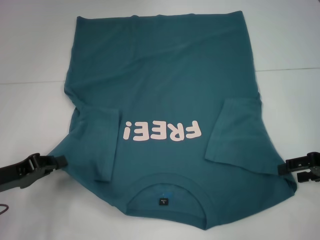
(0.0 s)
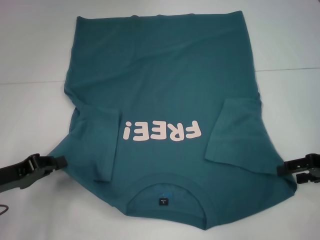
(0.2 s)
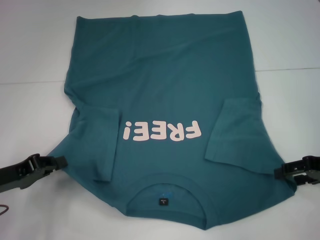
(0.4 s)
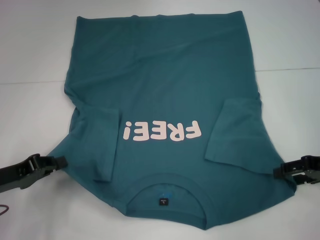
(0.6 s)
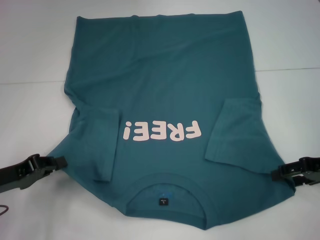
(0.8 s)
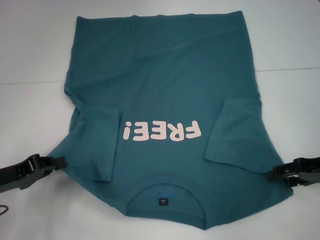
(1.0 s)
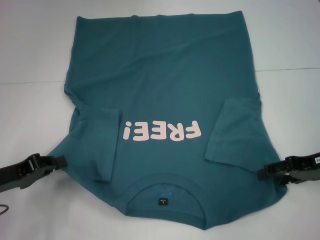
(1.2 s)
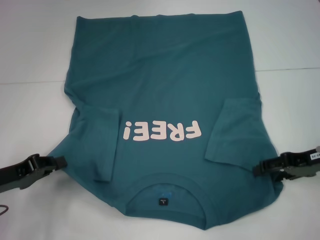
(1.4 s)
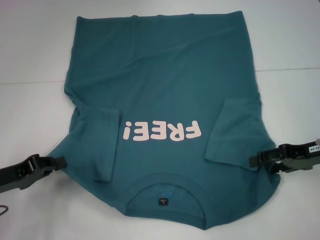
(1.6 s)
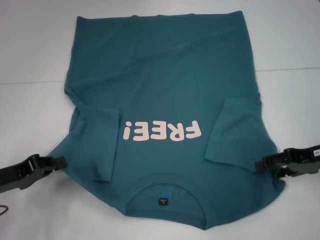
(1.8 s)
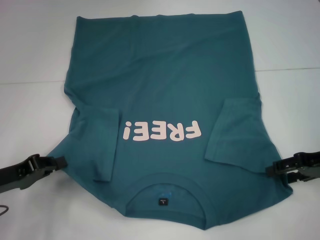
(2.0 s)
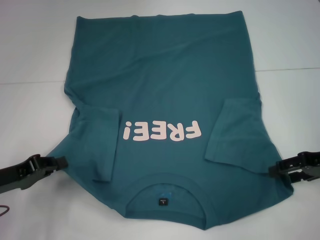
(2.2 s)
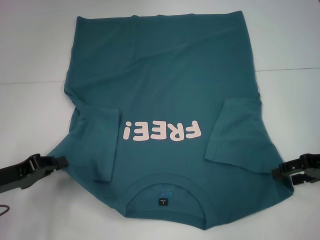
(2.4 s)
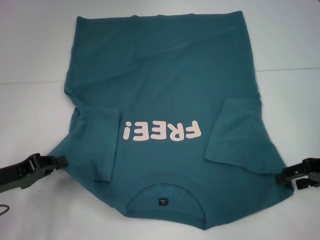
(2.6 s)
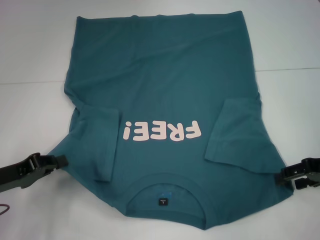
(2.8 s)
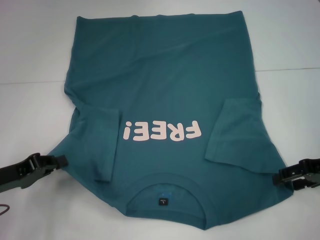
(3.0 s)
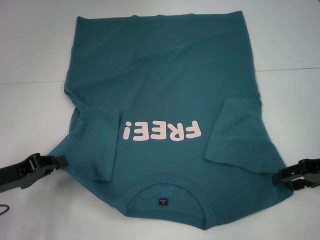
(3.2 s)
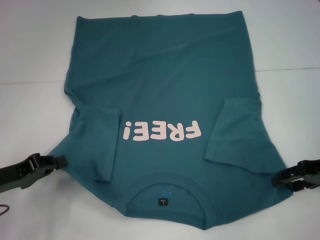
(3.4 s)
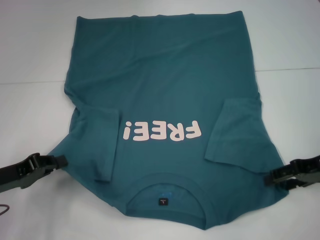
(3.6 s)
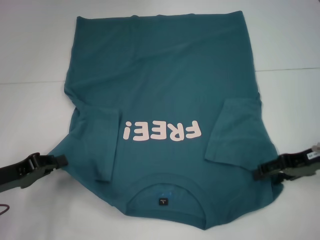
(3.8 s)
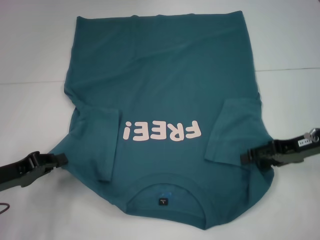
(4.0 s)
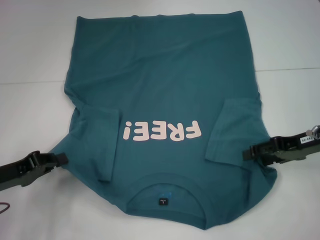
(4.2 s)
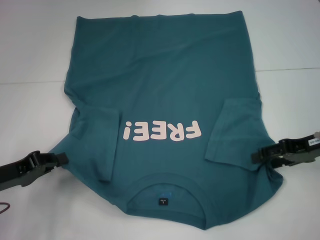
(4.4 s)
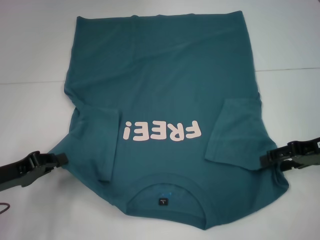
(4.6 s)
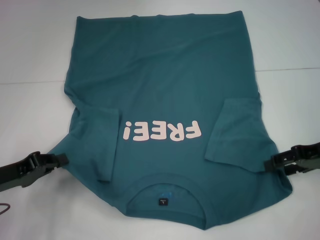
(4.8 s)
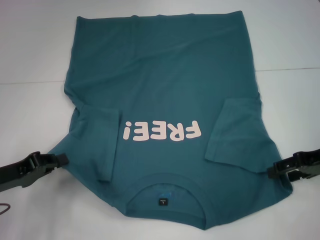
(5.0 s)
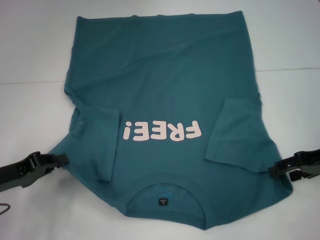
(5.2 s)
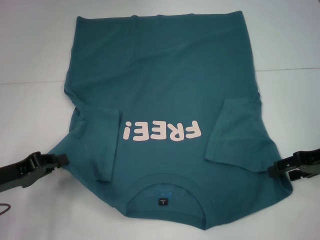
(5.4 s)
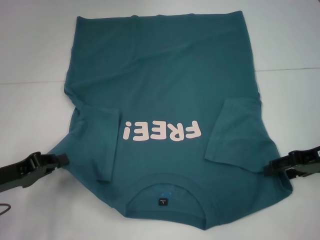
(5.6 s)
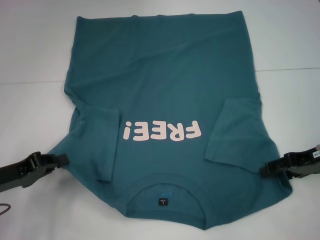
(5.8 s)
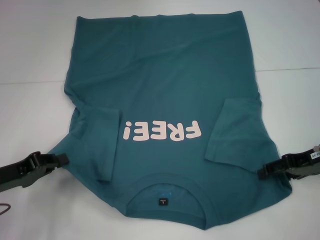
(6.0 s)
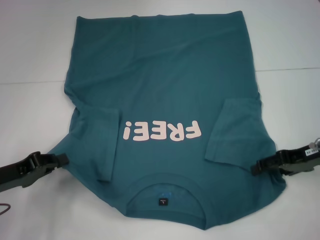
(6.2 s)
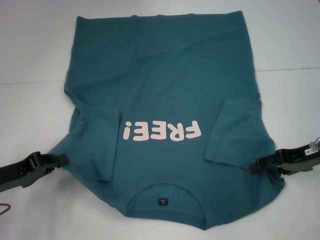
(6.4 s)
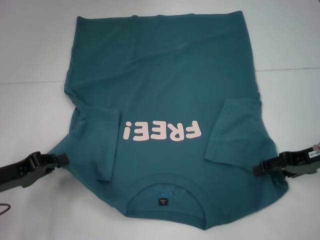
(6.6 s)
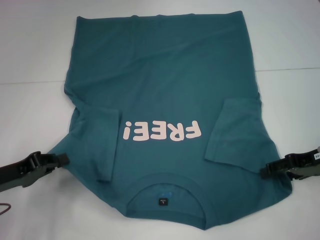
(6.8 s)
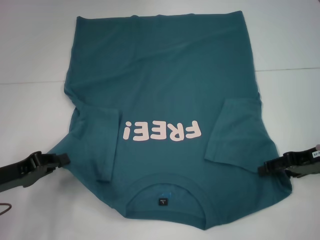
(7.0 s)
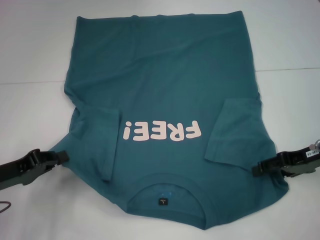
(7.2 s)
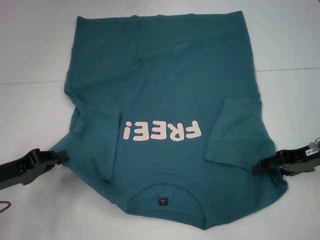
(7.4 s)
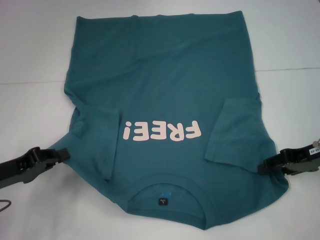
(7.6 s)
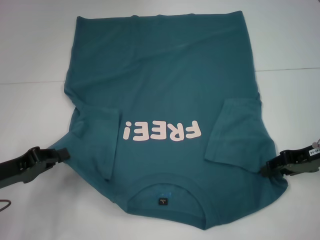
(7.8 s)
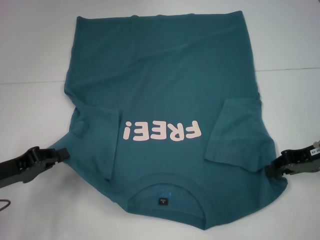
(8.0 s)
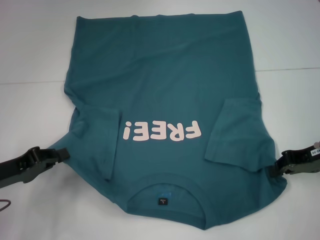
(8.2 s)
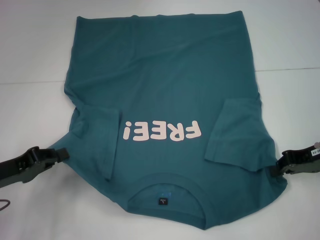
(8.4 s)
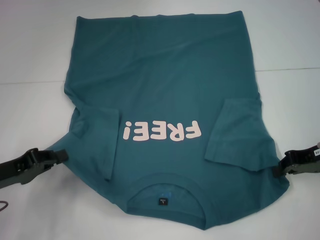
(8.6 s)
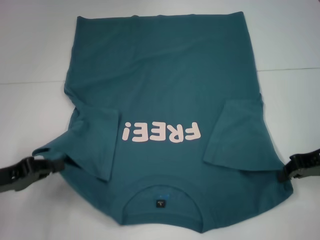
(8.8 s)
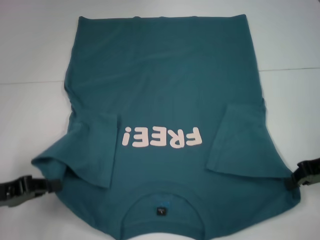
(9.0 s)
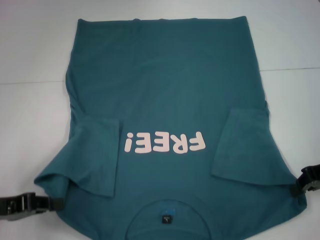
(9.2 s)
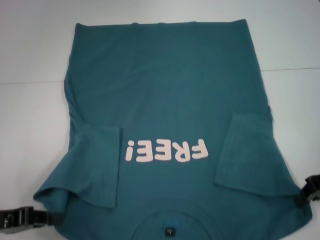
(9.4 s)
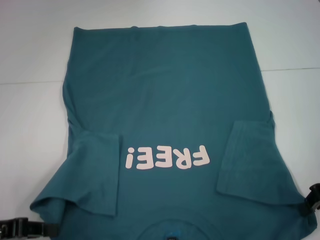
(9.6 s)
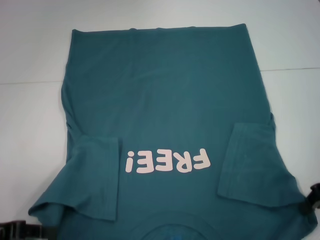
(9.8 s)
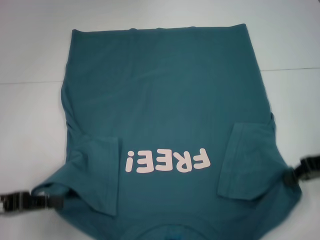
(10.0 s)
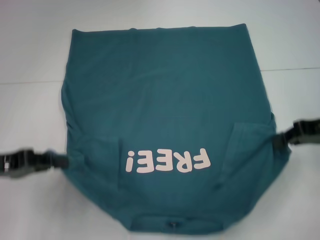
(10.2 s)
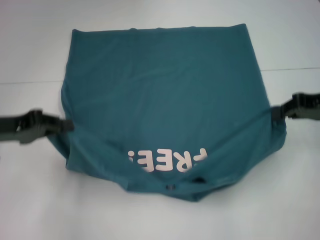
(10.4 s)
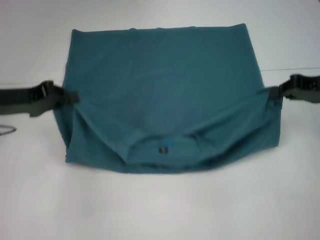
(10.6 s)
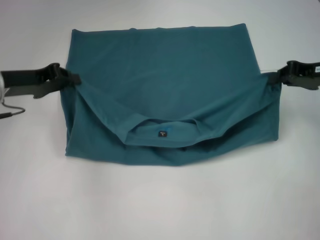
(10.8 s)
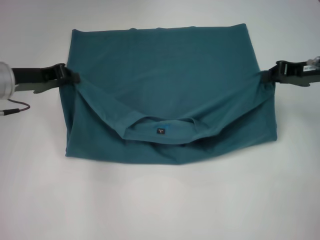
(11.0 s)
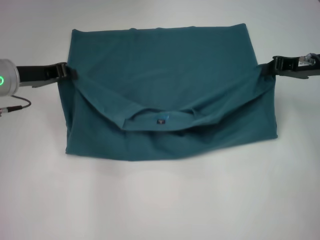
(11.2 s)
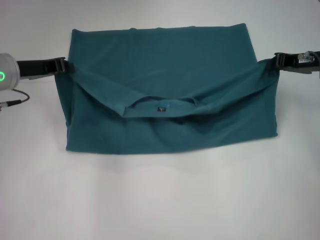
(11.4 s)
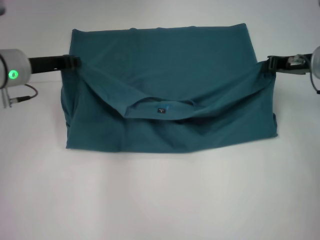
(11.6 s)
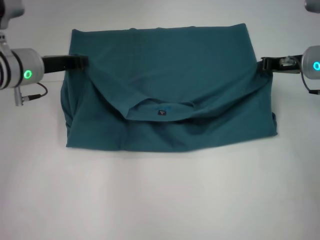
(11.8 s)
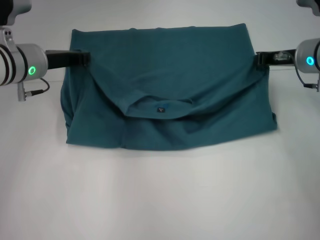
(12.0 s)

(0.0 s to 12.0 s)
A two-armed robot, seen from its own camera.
Step, 0.0 s - 8.8 s: Grab the bottom right corner with your right hand.
0.0 s - 3.0 s: The grippers move only a little.
3.0 s - 6.0 s: The grippers stay close to where they were, moving slightly.
6.0 s - 7.6 s: Both grippers stay about where they are.
7.6 s - 9.0 s: The right gripper closes its fingers.
9.0 s - 10.4 s: The right gripper moves upward, roughly 5 cm. The left gripper heads forward and upward, covering approximately 10 cm.
10.4 s - 12.0 s: The left gripper shifts approximately 15 cm forward and to the right. The right gripper moves forward and to the left, roughly 10 cm.

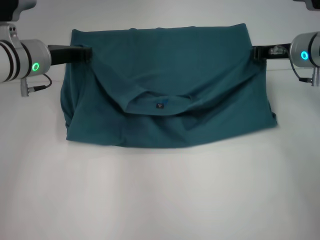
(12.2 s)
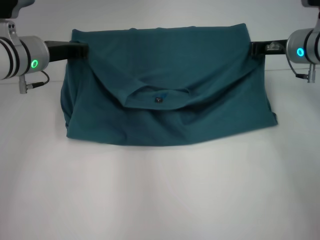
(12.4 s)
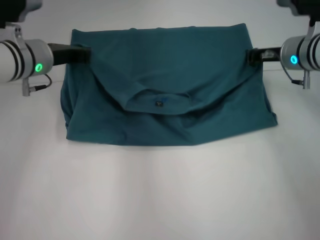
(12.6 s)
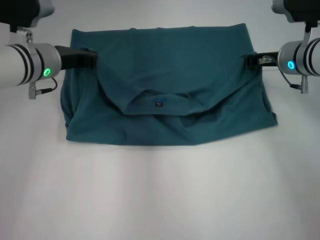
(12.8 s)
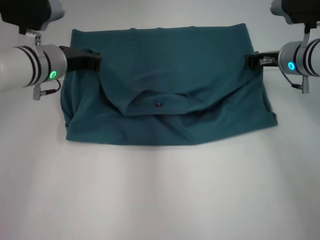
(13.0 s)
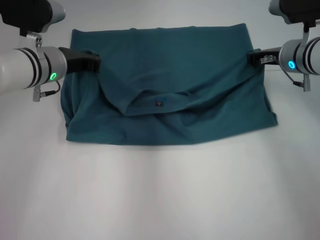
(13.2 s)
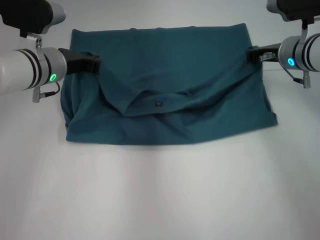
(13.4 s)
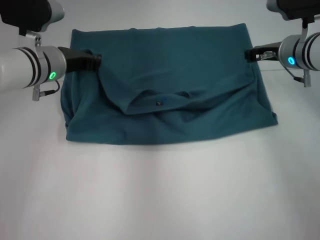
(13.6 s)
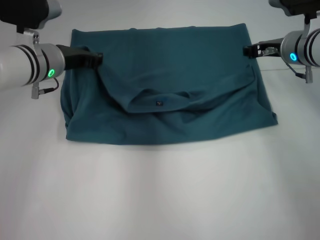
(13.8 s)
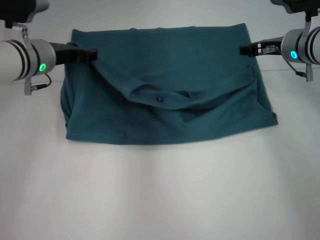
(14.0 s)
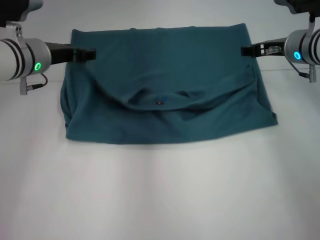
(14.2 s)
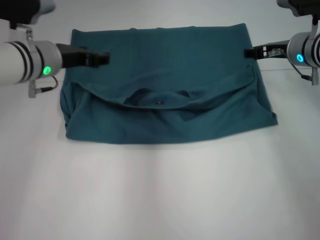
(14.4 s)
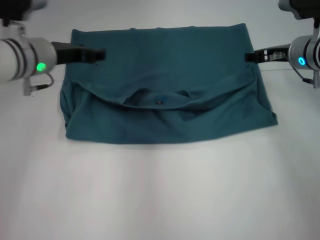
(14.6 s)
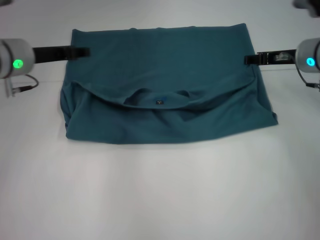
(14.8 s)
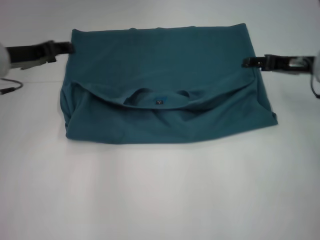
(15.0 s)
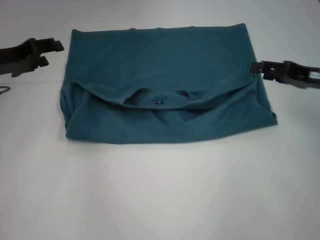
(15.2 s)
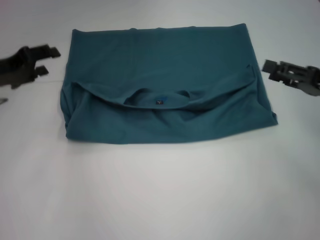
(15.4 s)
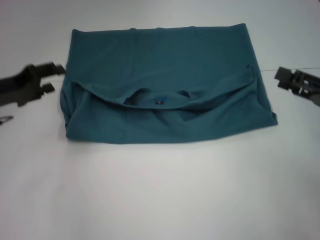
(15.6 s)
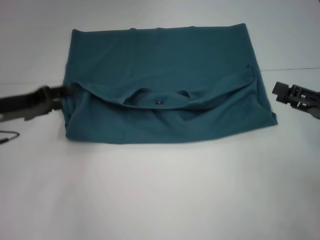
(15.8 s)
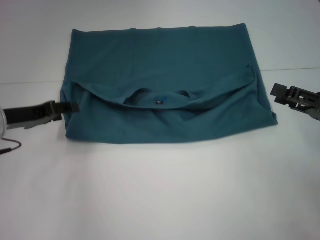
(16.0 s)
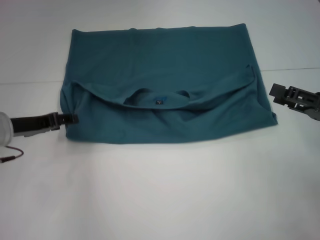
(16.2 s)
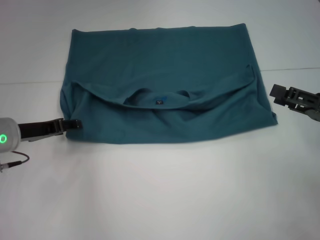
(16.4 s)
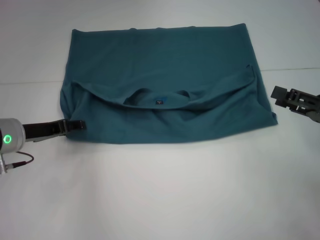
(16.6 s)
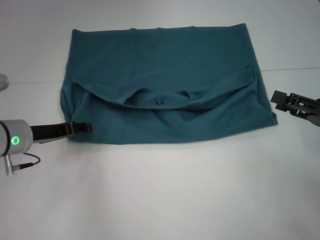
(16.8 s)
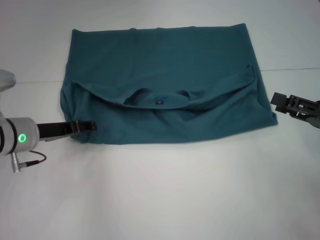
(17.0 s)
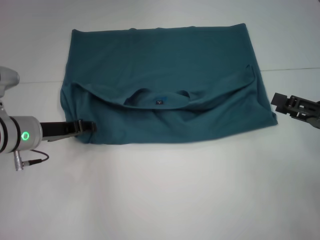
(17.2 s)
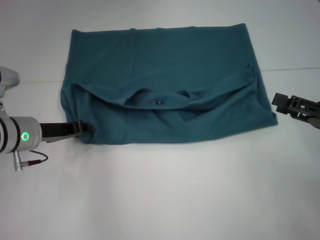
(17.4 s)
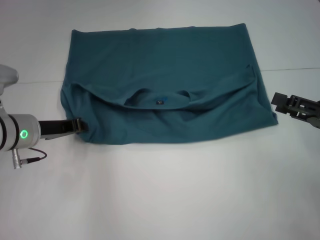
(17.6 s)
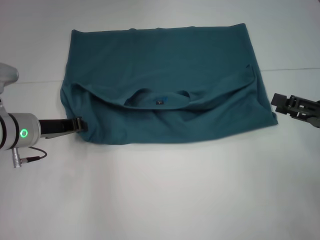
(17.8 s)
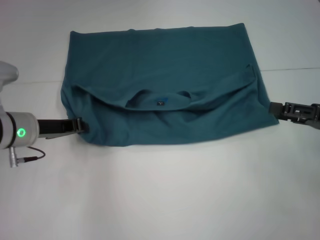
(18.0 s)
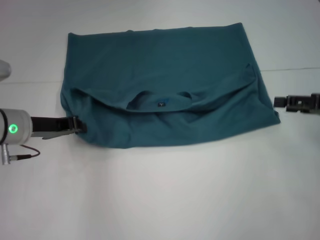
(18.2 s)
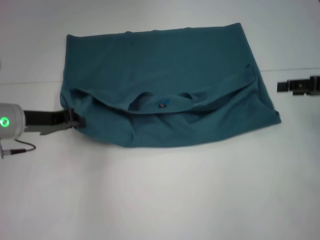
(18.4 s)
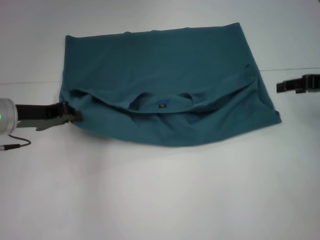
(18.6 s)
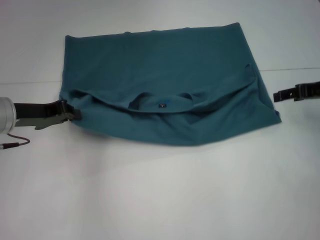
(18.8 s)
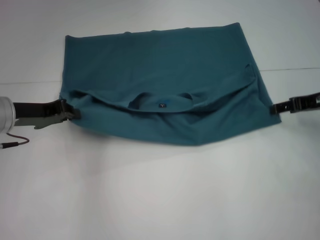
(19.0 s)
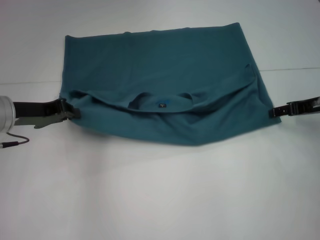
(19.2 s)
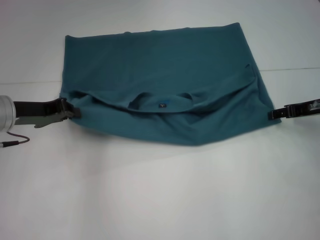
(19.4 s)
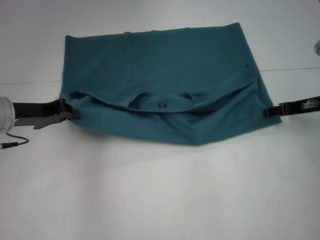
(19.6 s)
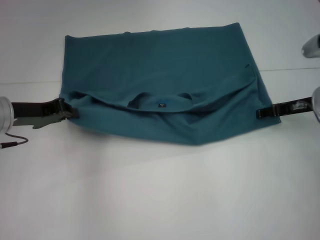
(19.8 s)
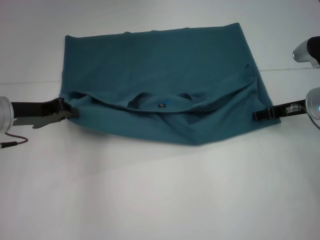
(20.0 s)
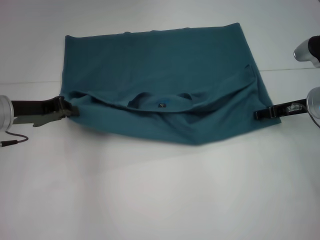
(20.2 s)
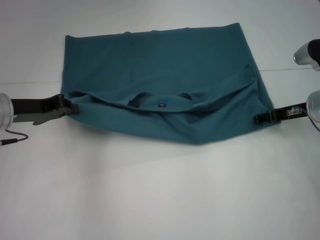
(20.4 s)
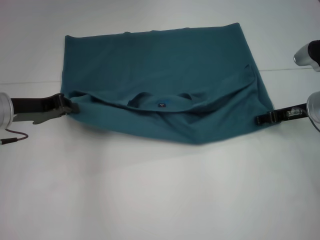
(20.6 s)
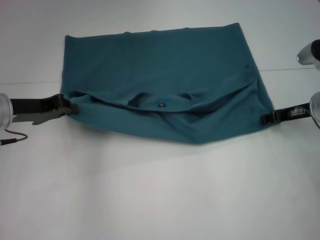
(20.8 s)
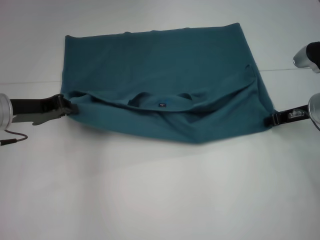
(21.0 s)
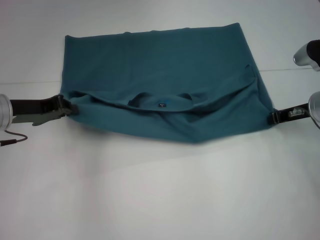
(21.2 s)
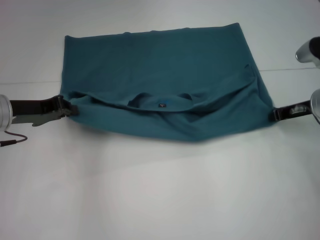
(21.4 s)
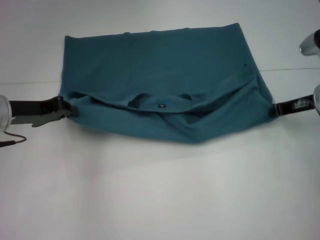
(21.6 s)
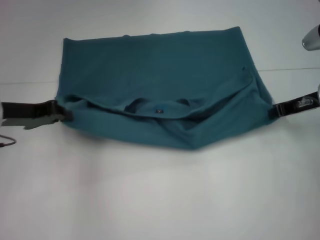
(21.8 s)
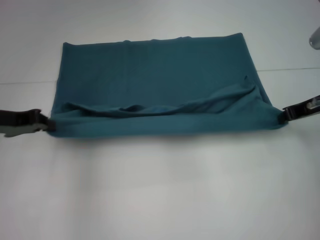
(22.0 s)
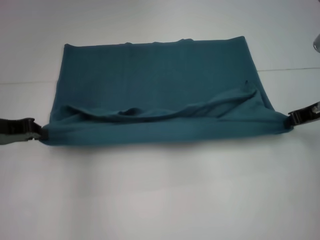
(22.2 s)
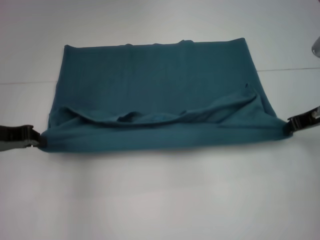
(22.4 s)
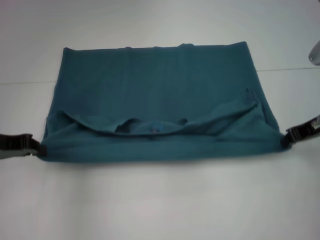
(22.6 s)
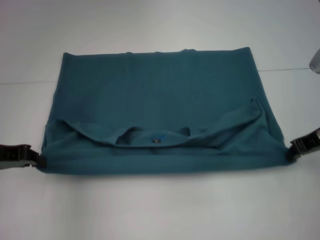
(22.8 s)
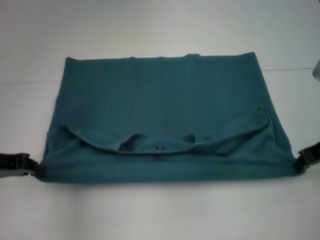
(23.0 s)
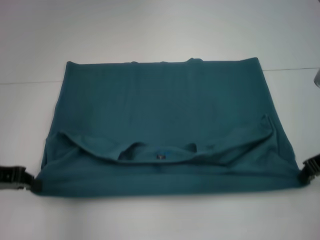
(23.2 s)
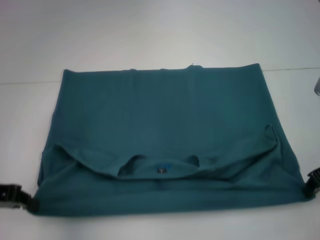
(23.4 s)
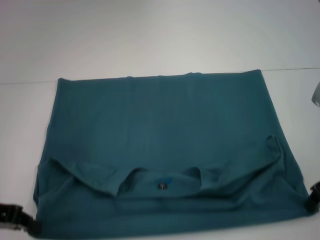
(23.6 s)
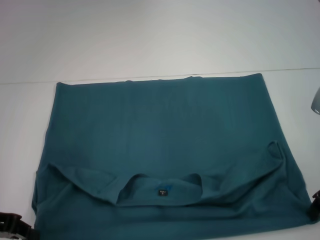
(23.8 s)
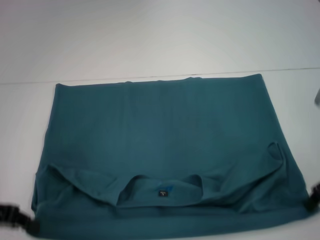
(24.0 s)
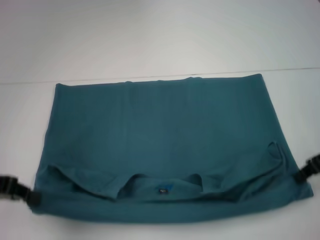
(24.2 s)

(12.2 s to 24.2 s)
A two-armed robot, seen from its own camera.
Step, 12.2 s - 14.6 s: Fold the clothes to the left.
Step, 12.2 s - 14.6 s: Fold the clothes to the right.
Step, 14.8 s - 23.6 s: Pull the clothes with your left hand.
Step, 14.8 s - 23.6 s: Pull the clothes with your right hand.
12.2 s - 13.8 s: The grippers stay close to where they were, moving slightly.
13.8 s - 15.2 s: The right gripper is displaced backward and to the right by about 15 cm, and opens up. The left gripper travels to the left by about 10 cm, and opens its fingers.
15.2 s - 16.6 s: The left gripper heads downward, covering roughly 10 cm; the right gripper goes approximately 10 cm backward.
16.6 s - 18.2 s: The right gripper moves roughly 5 cm; the left gripper closes.
18.2 s - 19.8 s: The right gripper heads forward and to the left, covering some 10 cm.
19.8 s - 21.2 s: The right gripper closes up.
21.2 s - 22.6 s: The right gripper changes place by roughly 5 cm. Meanwhile the left gripper shifts by roughly 5 cm.
22.6 s - 24.2 s: The left gripper moves backward, approximately 5 cm.
